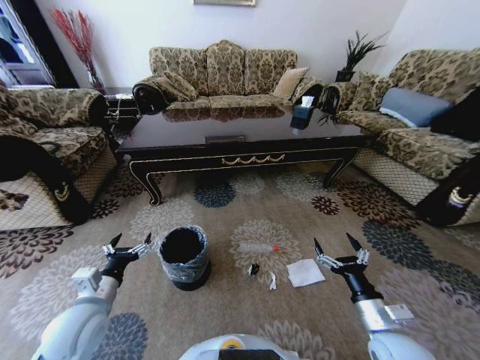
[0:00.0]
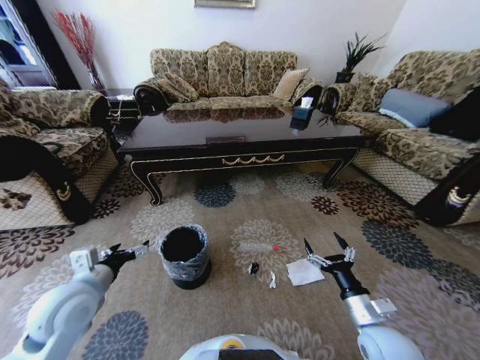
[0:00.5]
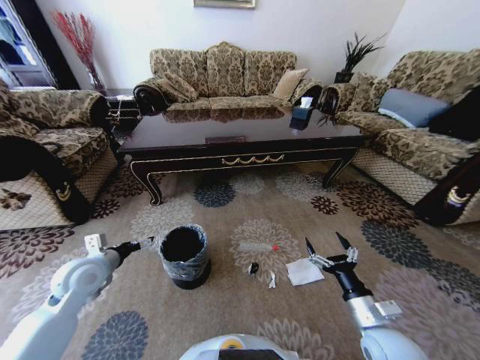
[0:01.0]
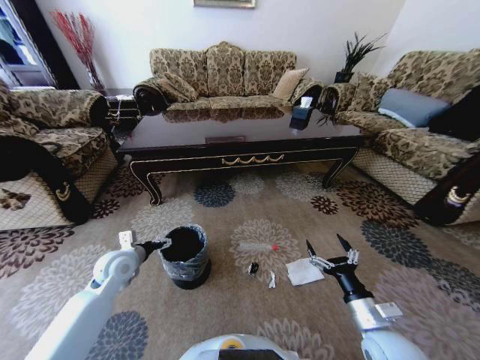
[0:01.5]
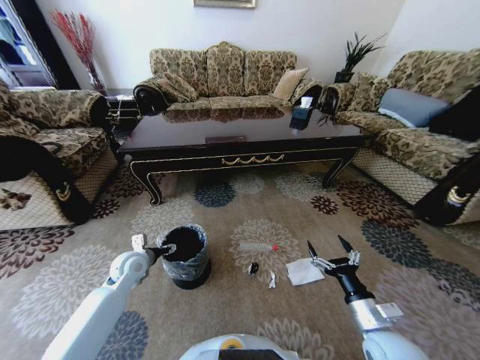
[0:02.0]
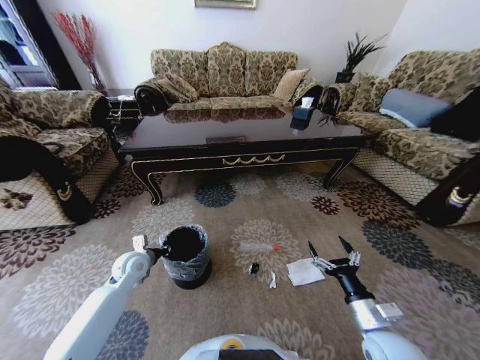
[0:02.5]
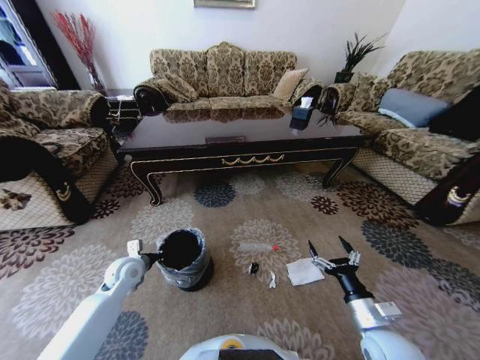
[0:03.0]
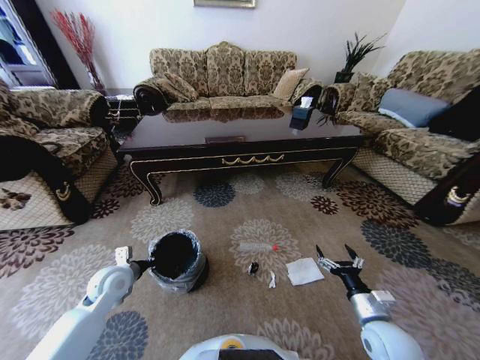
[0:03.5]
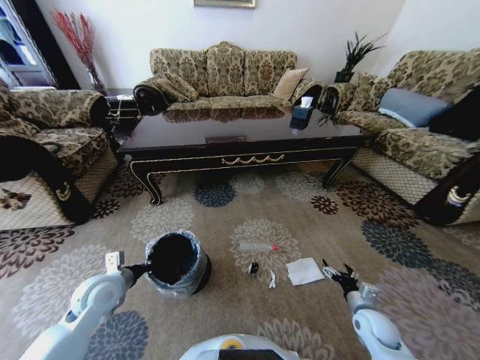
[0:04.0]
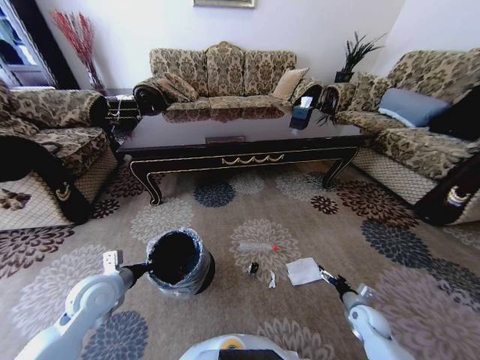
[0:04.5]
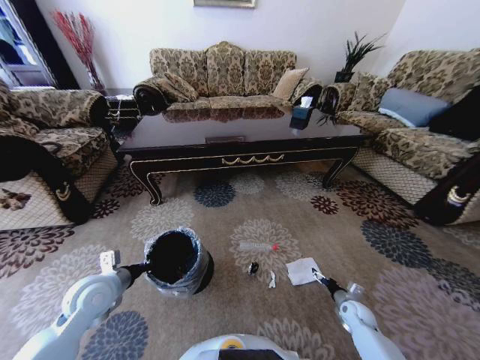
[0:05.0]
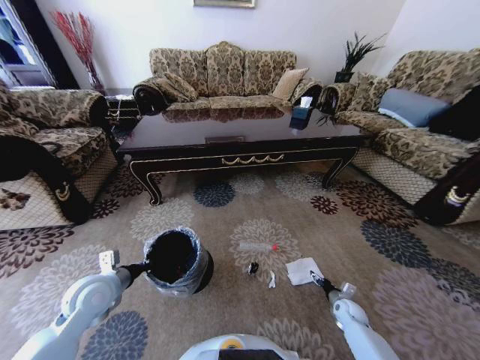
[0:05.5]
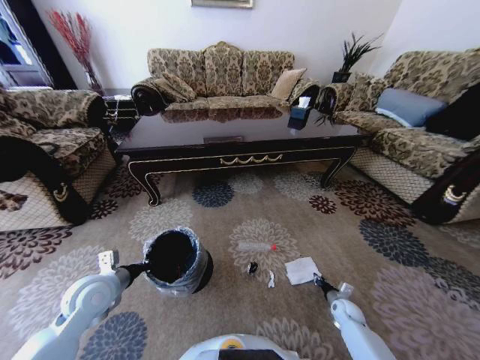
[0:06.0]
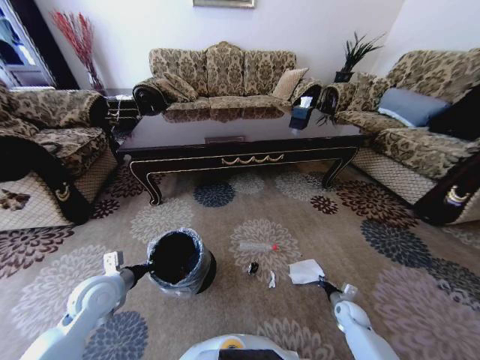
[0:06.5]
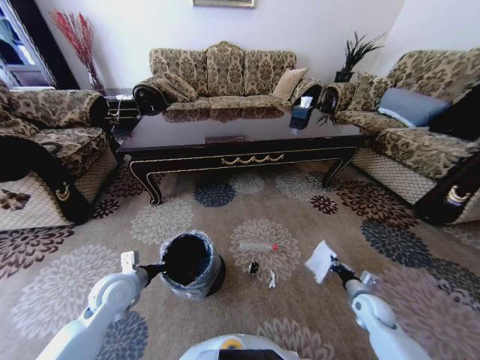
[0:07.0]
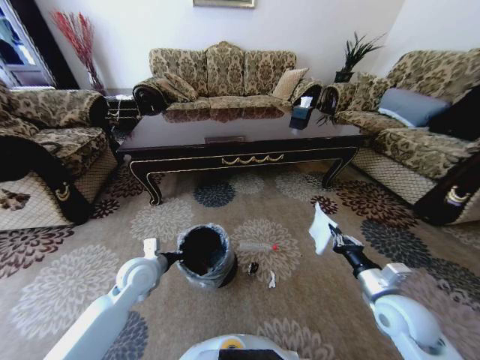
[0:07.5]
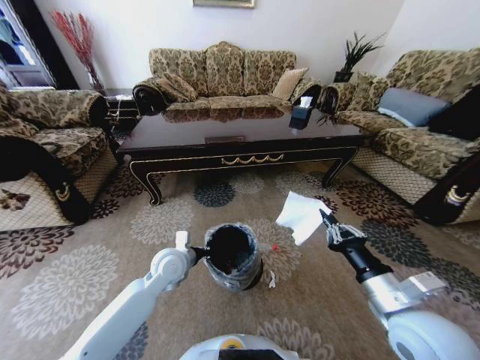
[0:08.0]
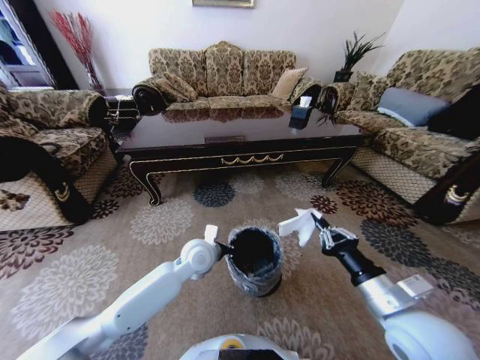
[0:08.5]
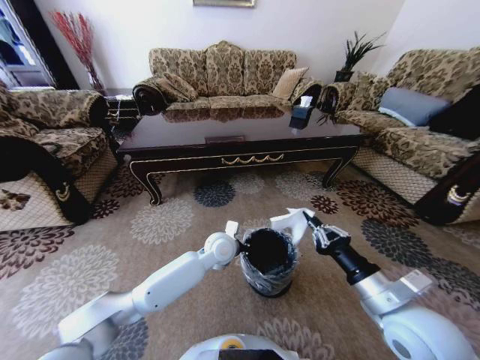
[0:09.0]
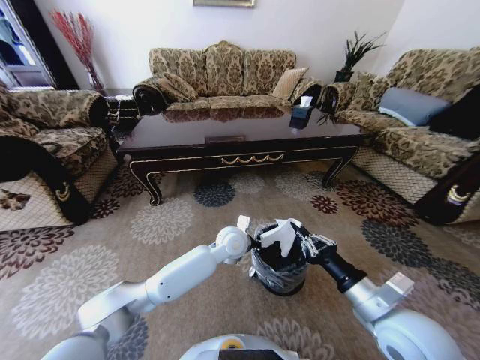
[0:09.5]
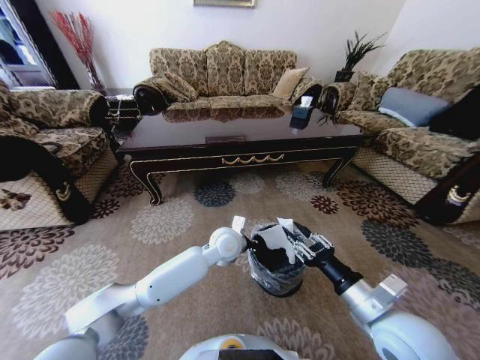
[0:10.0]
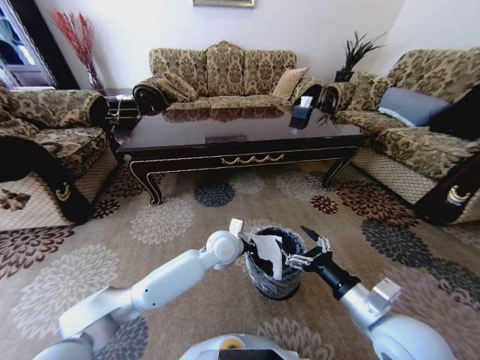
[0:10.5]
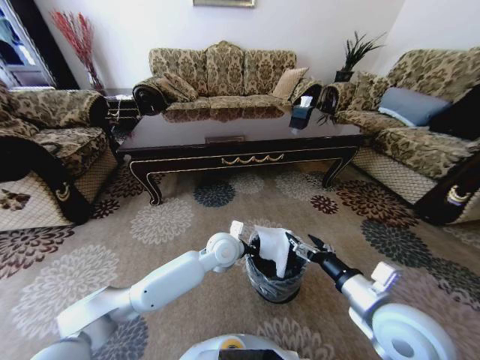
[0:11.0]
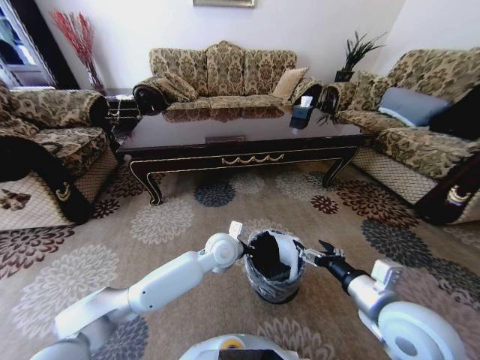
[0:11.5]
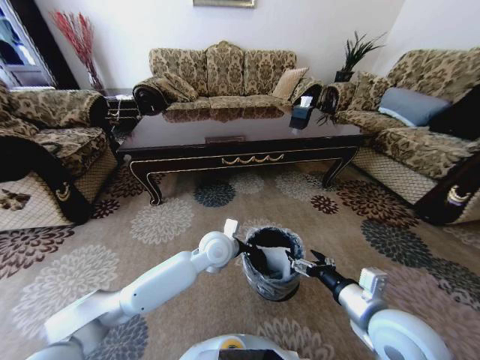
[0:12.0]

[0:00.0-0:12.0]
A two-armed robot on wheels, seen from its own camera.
Task of the whole recording: Move to the front of the table and pick up the trash from the floor, then place it into the trash bin.
0:00.0 to 0:02.0: The left gripper is displaced forward by some 15 cm.
0:02.0 to 0:04.0: The left gripper heads backward, covering some 10 cm, and closes its fingers. Meanwhile the right gripper moves downward, to the right and forward, roughly 15 cm.
0:04.0 to 0:06.0: The right gripper is displaced downward and forward by roughly 15 cm, and closes.
0:06.0 to 0:08.0: The right gripper goes roughly 35 cm upward. Meanwhile the left gripper travels to the right and forward by approximately 20 cm.
0:08.0 to 0:10.0: The left gripper heads to the right, covering some 15 cm, while the right gripper opens up.
0:10.0 to 0:12.0: The right gripper opens its fingers.

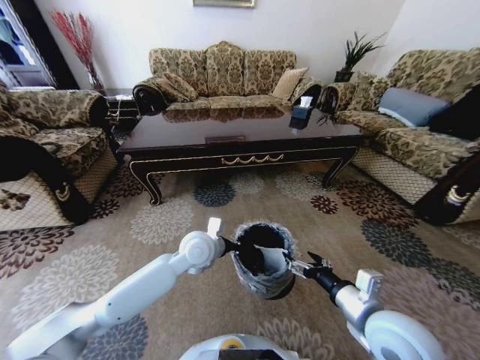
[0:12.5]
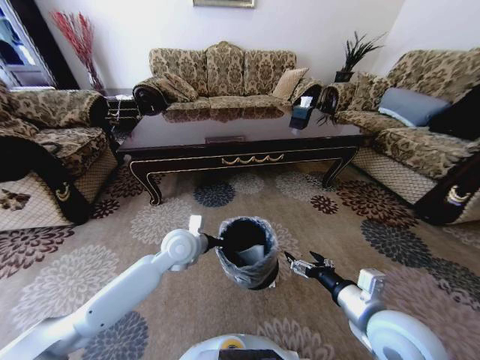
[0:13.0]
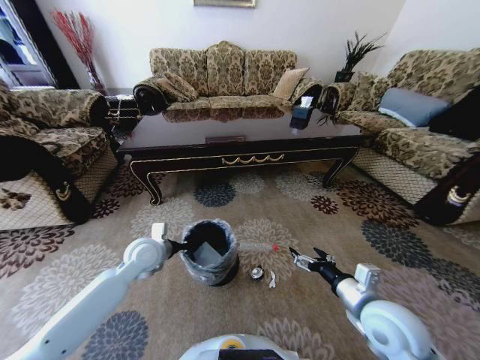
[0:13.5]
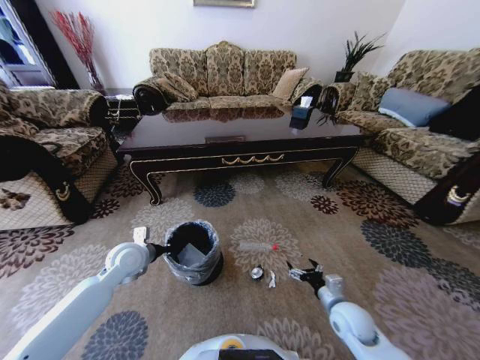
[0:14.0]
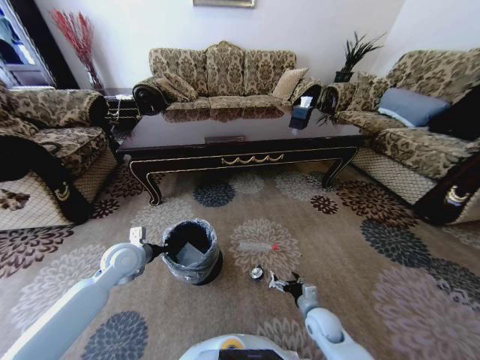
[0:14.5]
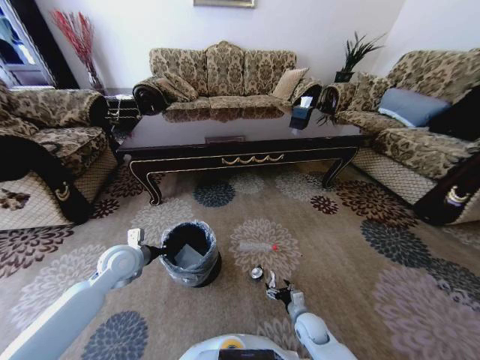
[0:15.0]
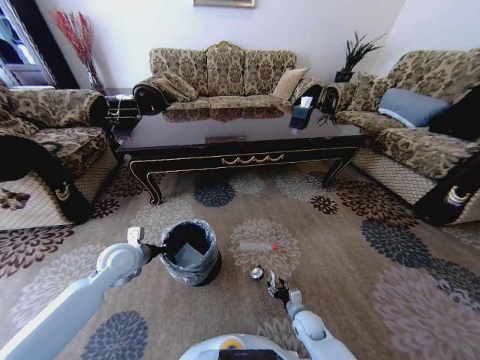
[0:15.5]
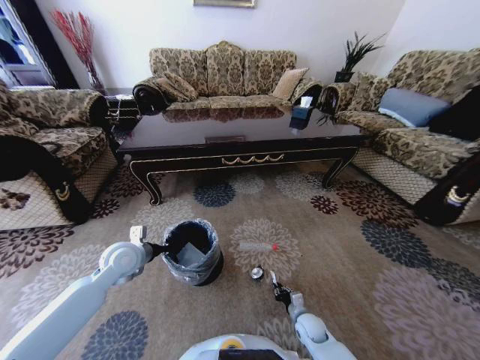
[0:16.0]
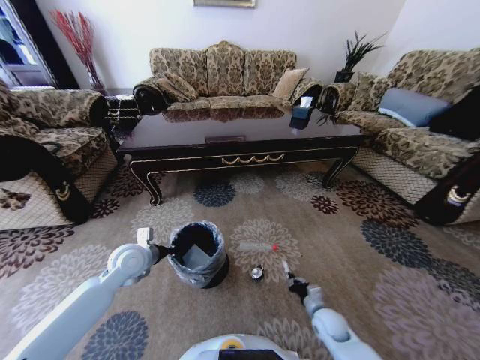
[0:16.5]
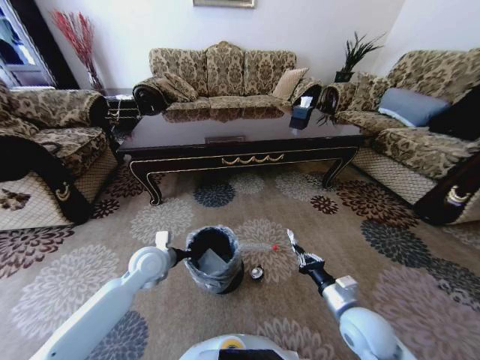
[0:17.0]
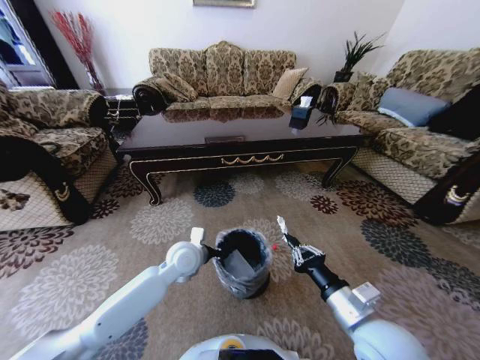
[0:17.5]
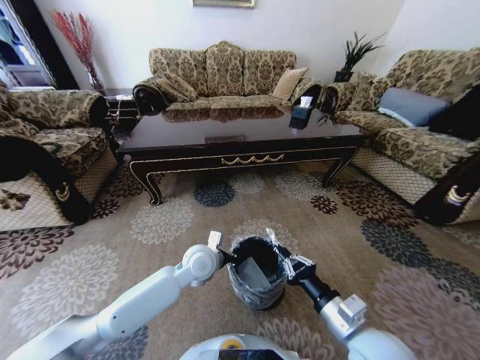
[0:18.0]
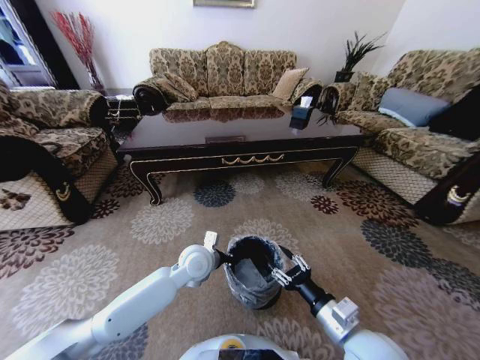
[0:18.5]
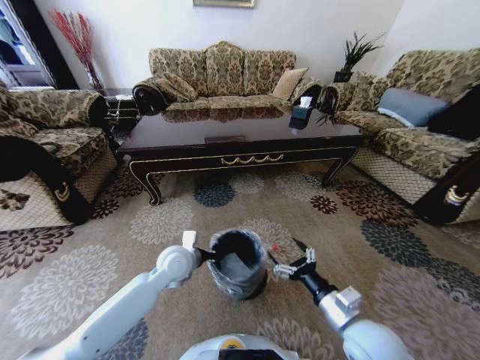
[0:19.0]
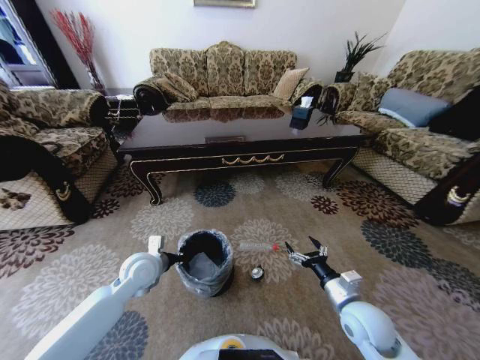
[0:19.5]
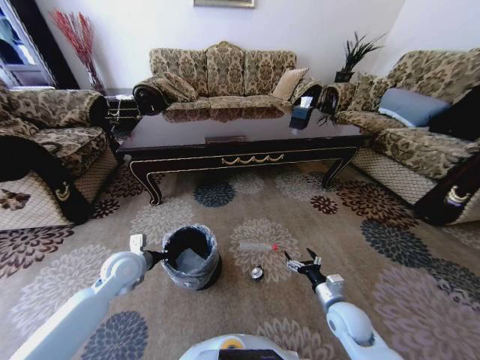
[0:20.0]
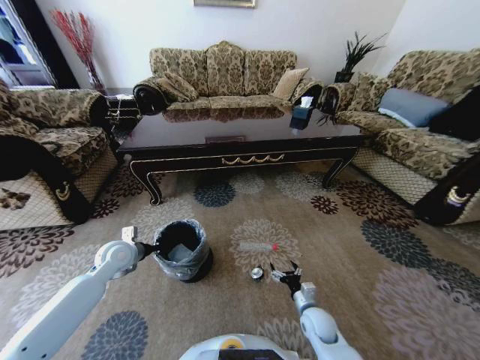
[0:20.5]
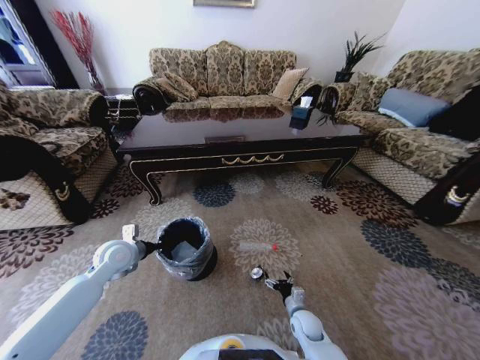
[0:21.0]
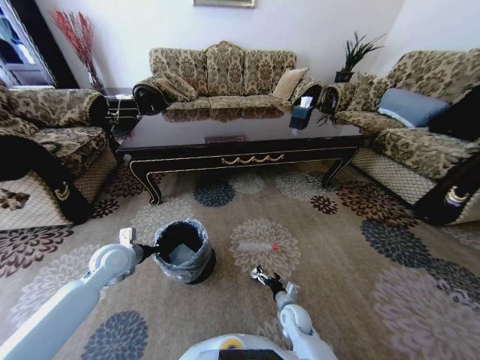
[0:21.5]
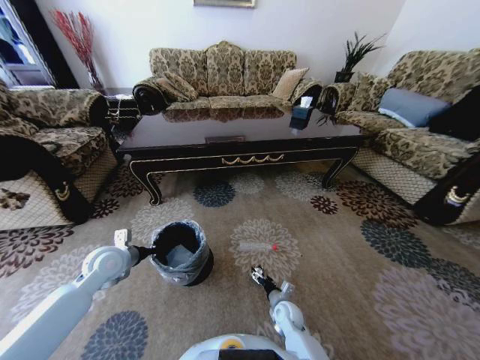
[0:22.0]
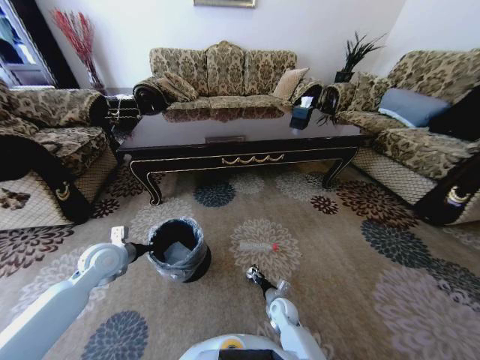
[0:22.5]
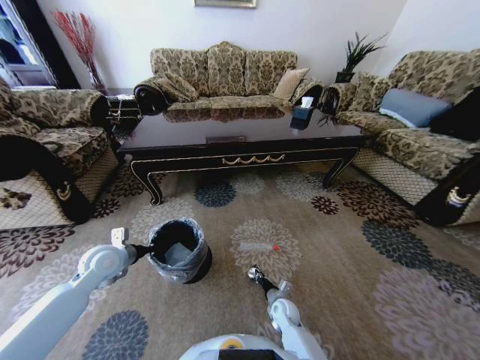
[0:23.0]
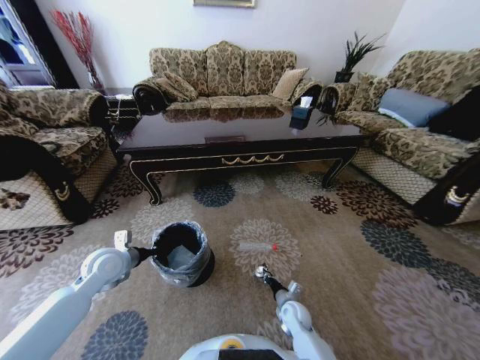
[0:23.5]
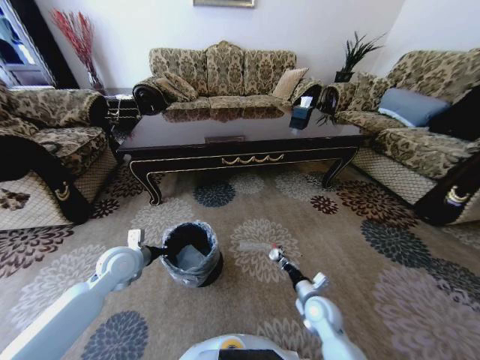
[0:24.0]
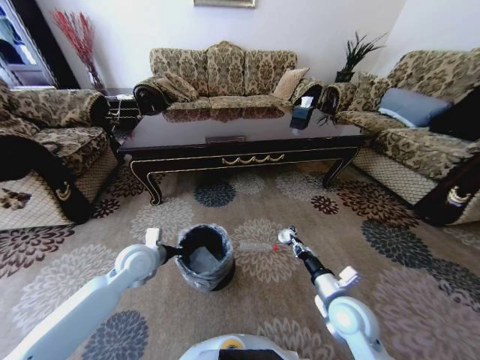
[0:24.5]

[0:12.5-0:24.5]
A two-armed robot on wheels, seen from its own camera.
Task of the whole recording: Move to the front of the table and pick up the trash from the floor, then place it into the trash bin.
0:12.5 to 0:14.5: The right gripper goes roughly 25 cm downward. Meanwhile the left gripper travels to the left by about 20 cm.
0:14.5 to 0:16.5: The right gripper reaches about 10 cm downward, then returns, and closes up.
0:16.5 to 0:18.5: The left gripper is displaced to the right by approximately 20 cm; the right gripper heads upward, covering some 25 cm, and opens.
0:18.5 to 0:20.5: The left gripper shifts some 25 cm to the left; the right gripper heads downward and forward, covering some 25 cm, and opens its fingers.
0:20.5 to 0:22.5: The right gripper goes some 10 cm to the left and downward, and closes up.
0:22.5 to 0:24.5: The left gripper travels to the right by about 10 cm, while the right gripper moves upward, approximately 25 cm, and closes up.

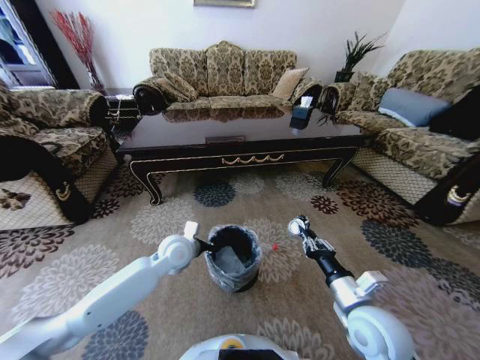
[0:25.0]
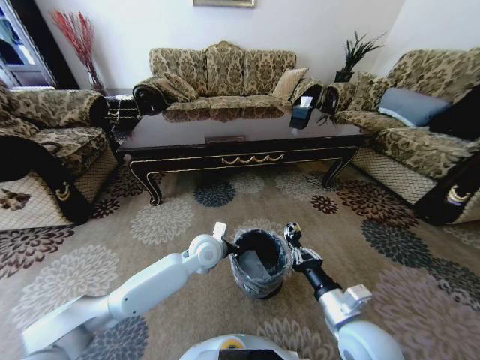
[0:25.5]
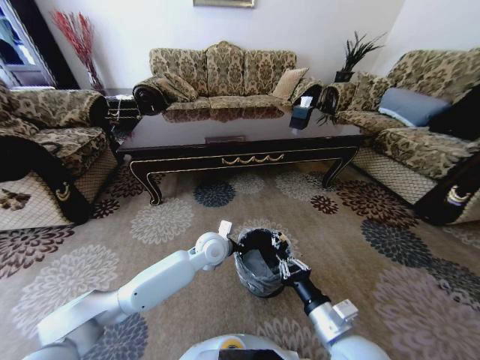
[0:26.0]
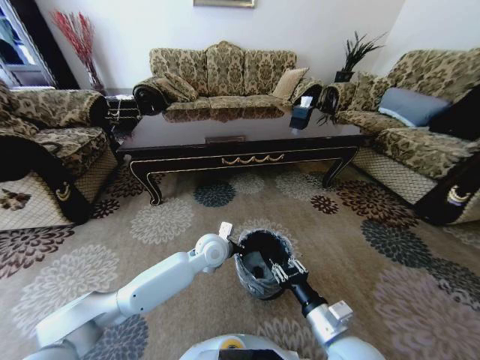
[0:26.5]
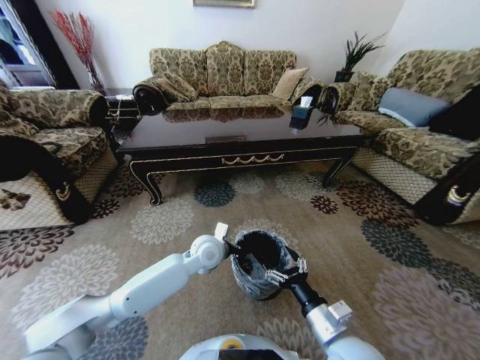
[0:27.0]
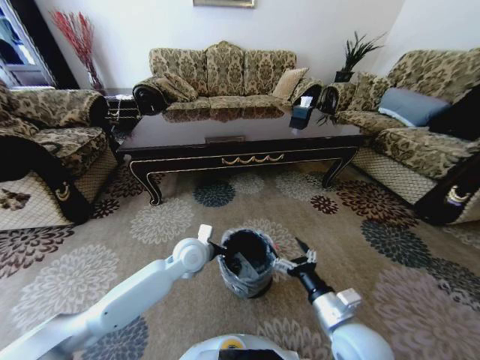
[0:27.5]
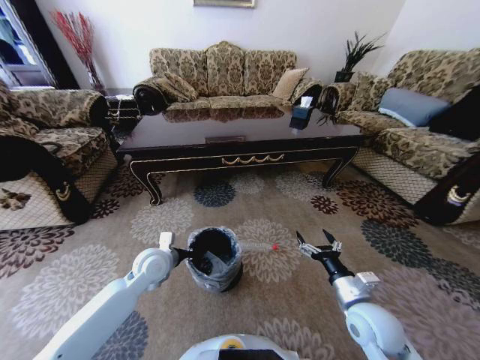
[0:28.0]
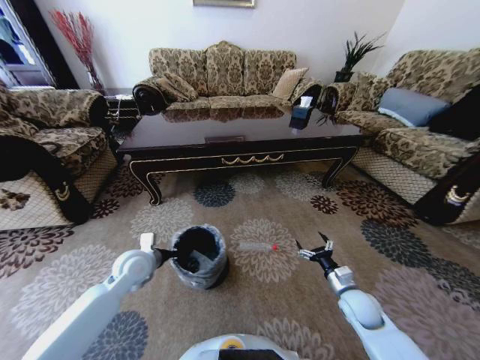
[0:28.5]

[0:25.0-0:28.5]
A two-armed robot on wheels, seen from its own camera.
Task of the whole recording: Move to the front of the table and pick up the trash from the floor, then place it into the trash bin.
0:25.0 to 0:27.0: The right gripper heads to the left, covering some 5 cm, and opens up. Meanwhile the left gripper is displaced to the right by roughly 10 cm.
0:27.0 to 0:28.5: The left gripper is displaced to the left by about 20 cm, while the right gripper goes approximately 25 cm to the right, forward and downward.
